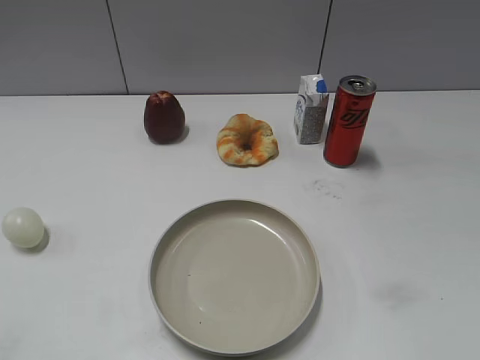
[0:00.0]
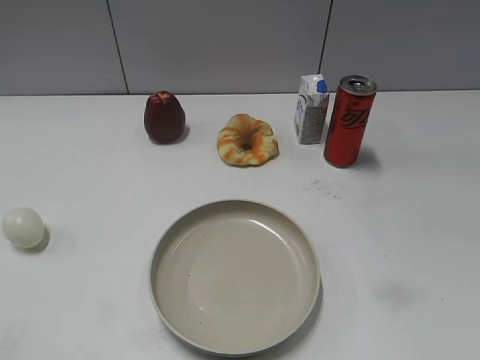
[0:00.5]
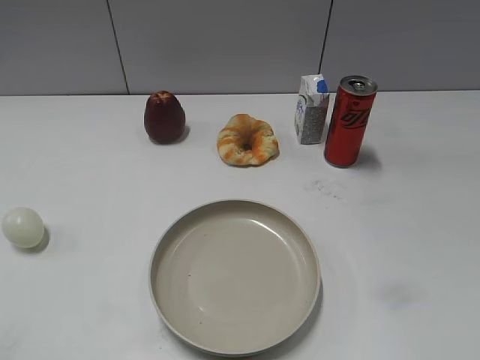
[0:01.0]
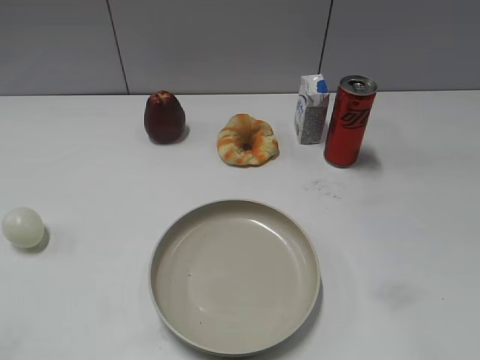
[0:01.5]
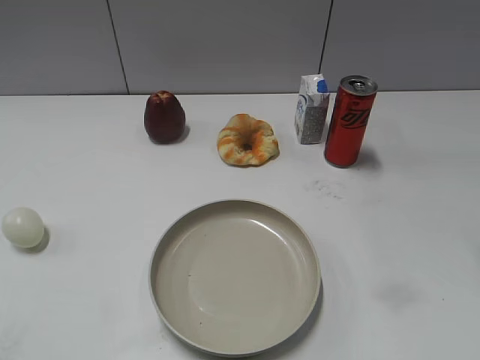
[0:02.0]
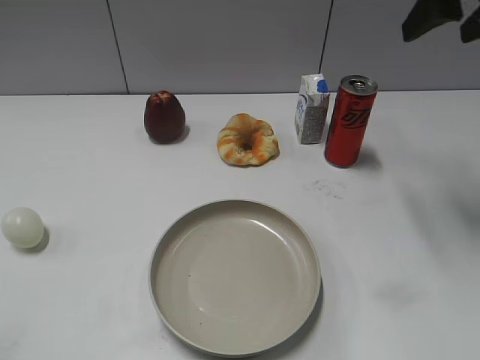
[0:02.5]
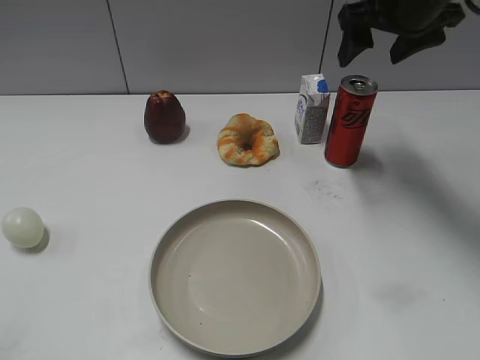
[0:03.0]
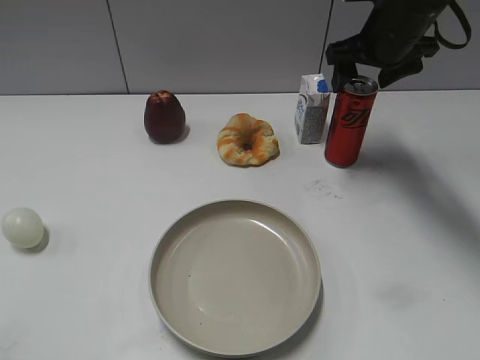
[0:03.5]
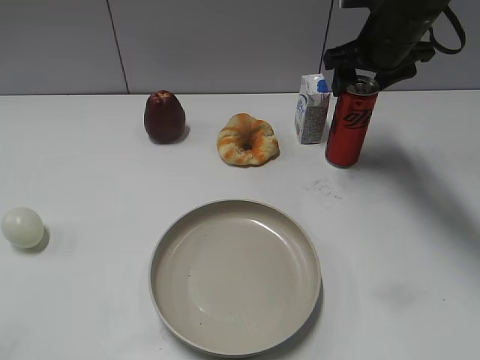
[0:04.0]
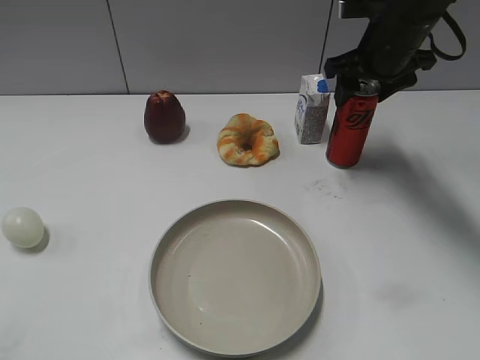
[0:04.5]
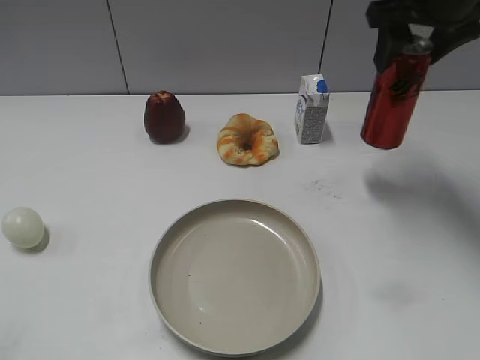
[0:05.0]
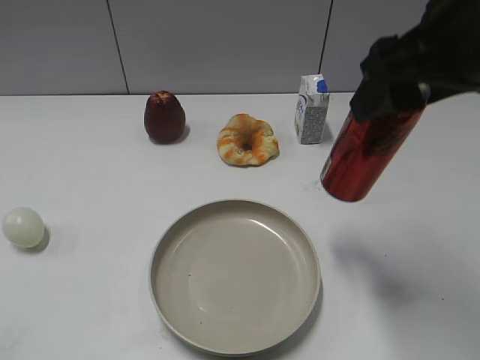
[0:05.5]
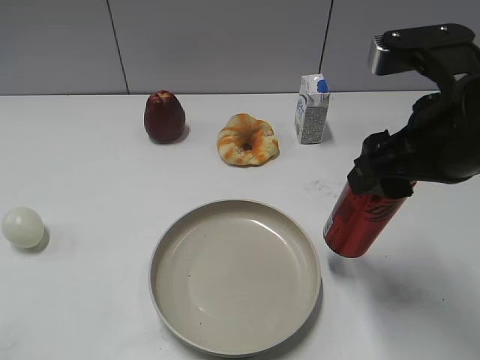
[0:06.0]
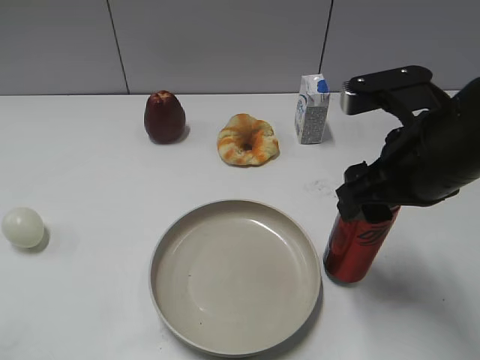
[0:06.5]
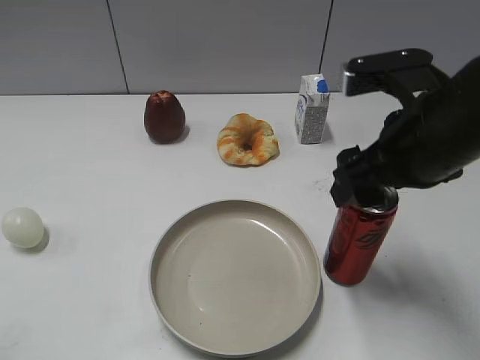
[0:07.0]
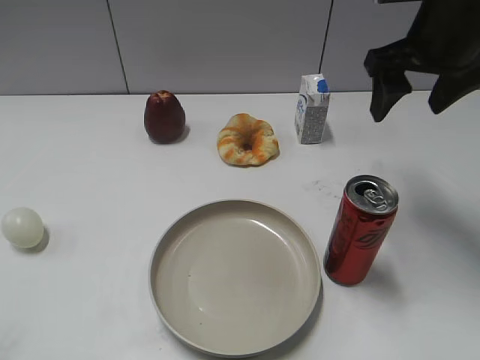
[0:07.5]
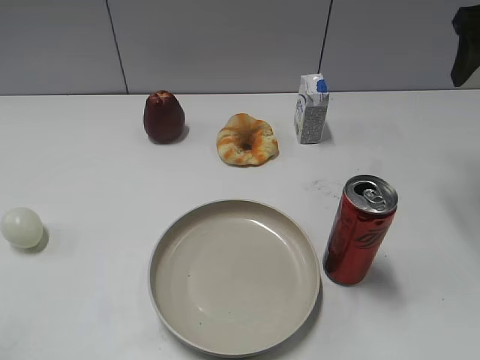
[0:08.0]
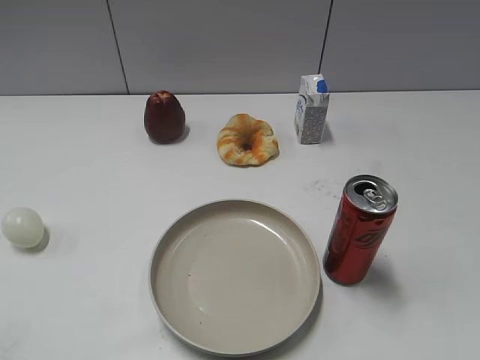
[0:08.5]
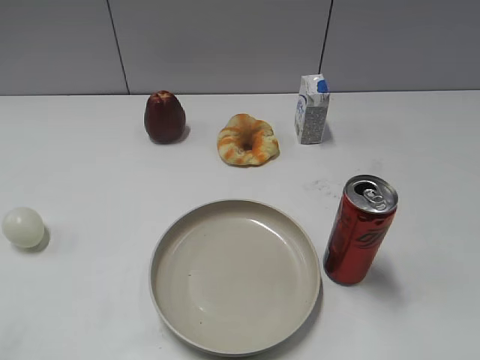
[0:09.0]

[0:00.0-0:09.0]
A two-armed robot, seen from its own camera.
Step, 0:01.5 to 0:04.0: Grasp the cola with right gripper.
Step, 0:04.5 to 0:07.0: Place the cola on the table with right gripper.
0:02.0 to 0:04.5: The right gripper moves forward and downward, some 25 cm, and closes.
0:04.5 to 0:07.0: The right gripper is displaced backward by about 20 cm, and opens.
0:07.0 to 0:09.0: The right gripper heads backward and to the right, covering roughly 20 cm.
